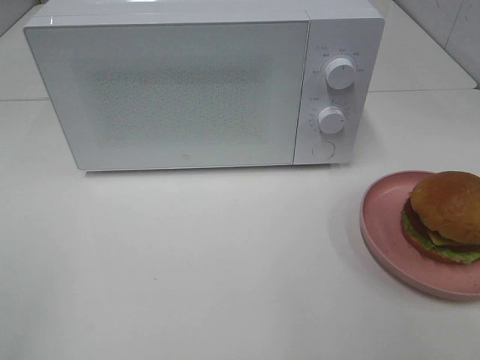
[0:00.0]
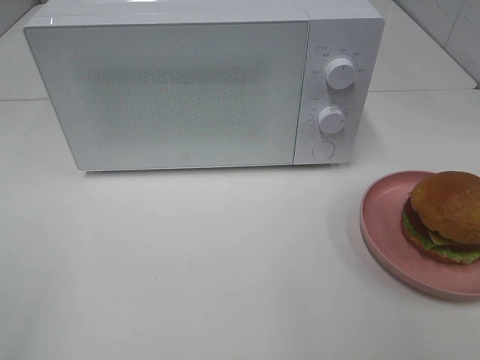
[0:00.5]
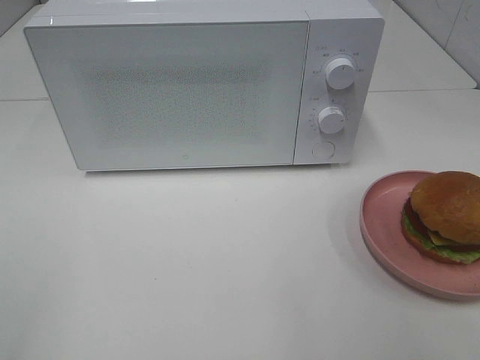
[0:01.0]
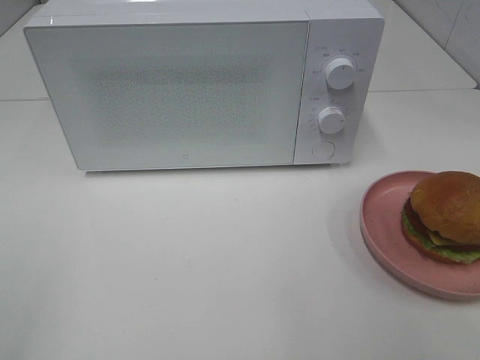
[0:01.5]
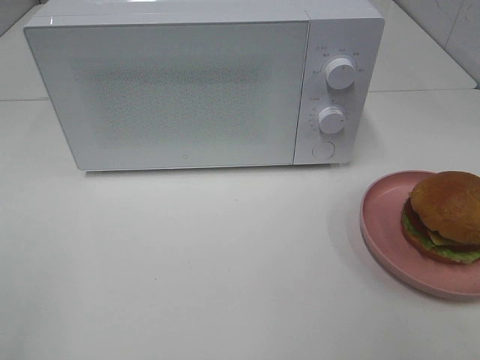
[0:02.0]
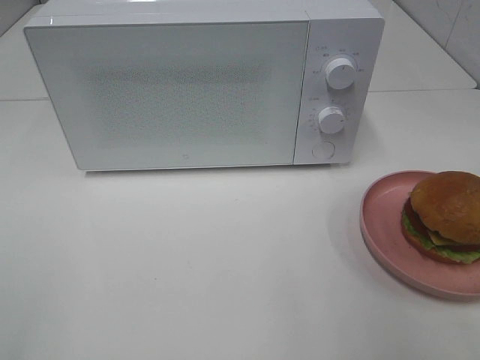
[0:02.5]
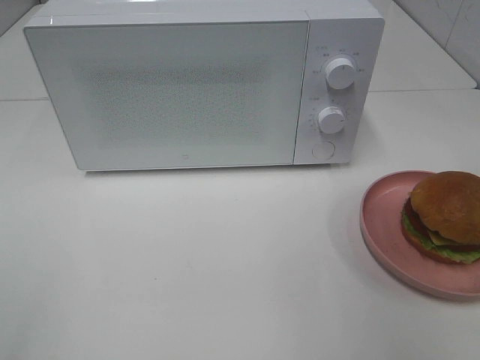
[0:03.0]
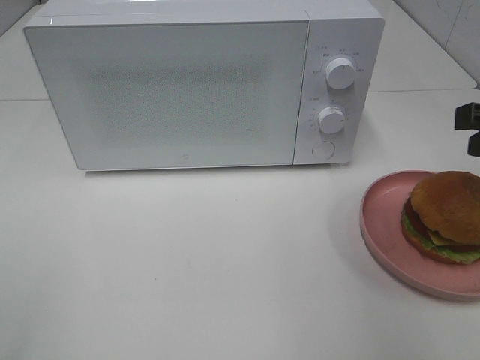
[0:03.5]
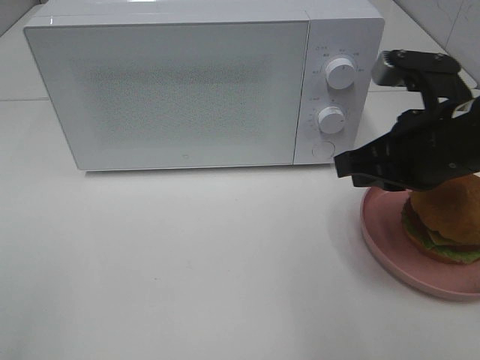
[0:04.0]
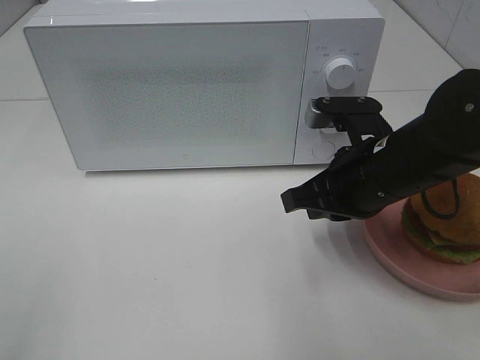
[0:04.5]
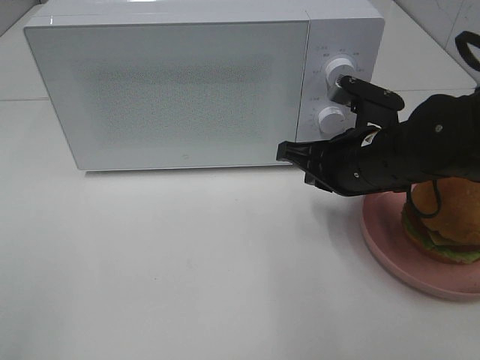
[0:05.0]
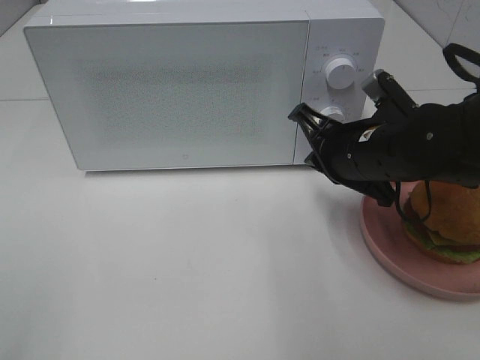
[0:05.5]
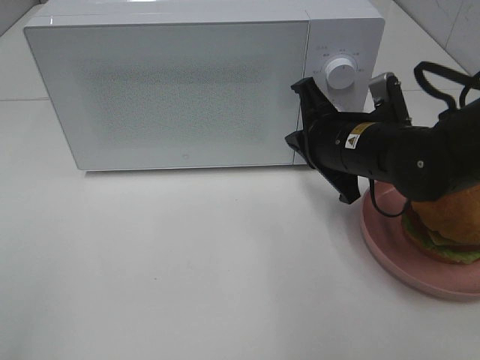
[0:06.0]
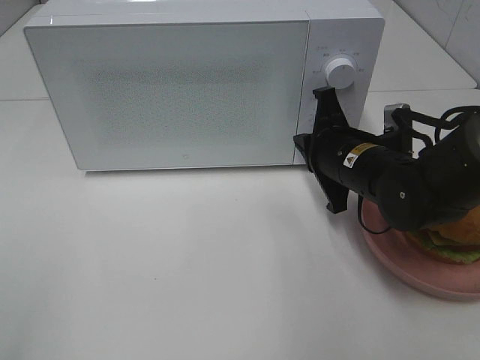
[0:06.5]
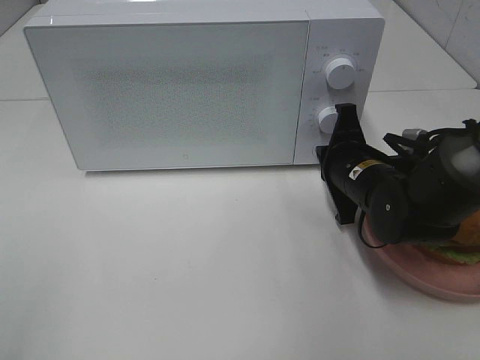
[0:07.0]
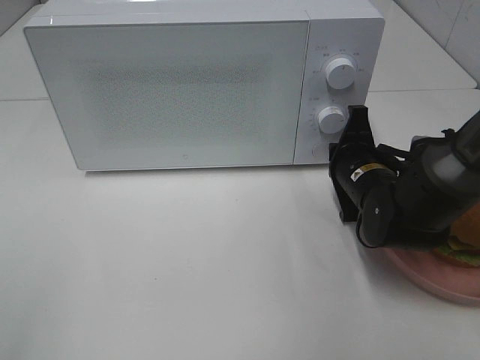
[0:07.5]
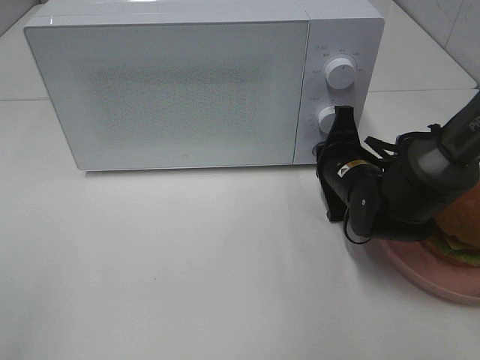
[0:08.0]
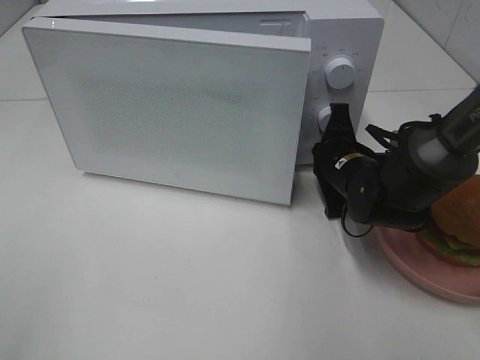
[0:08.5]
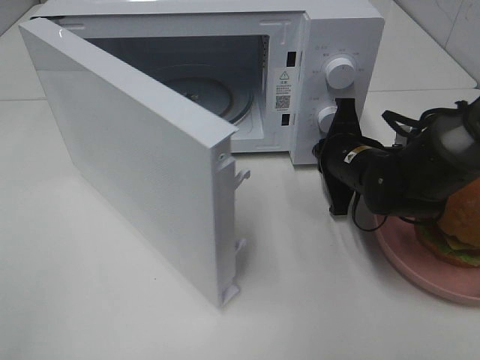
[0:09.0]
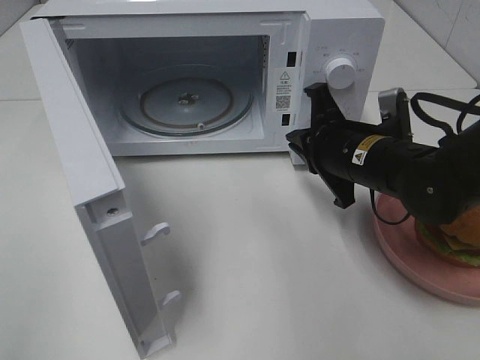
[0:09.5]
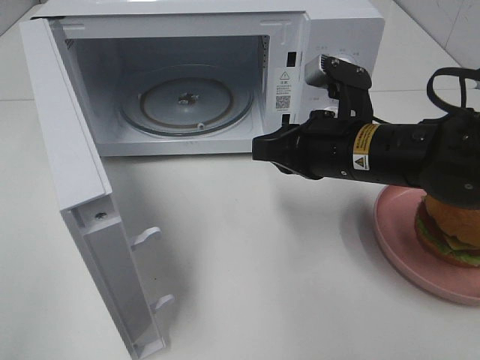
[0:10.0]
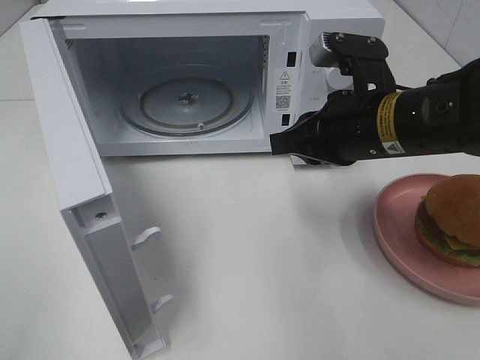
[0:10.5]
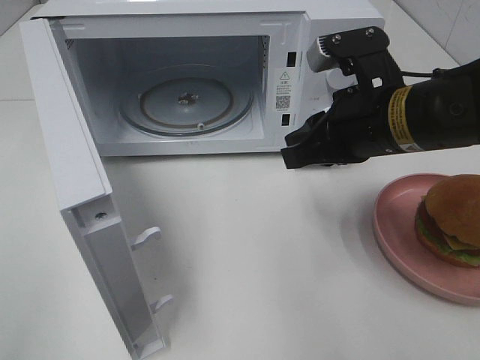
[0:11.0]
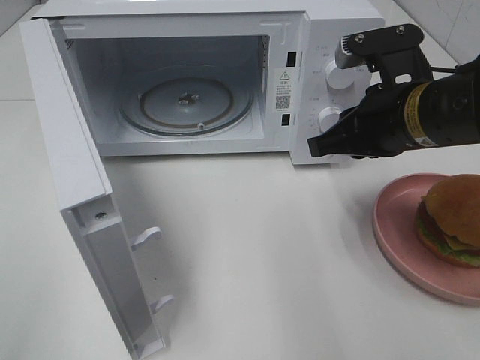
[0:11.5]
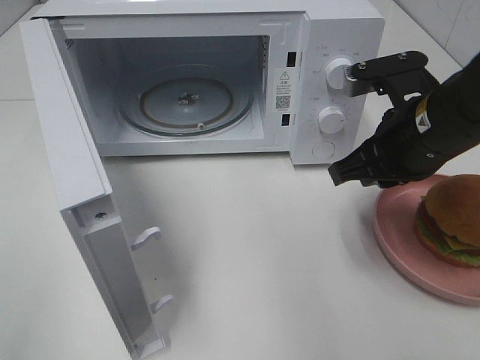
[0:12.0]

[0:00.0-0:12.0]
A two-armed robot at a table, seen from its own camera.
Task of the whole recording: Heat the burger.
Step, 0:00.0 to 0:09.0: Right hand: press the switch.
0:02.0 to 0:04.0: The right gripper heads forward, to the left and downward, covering roughly 25 cm, and closes its fingers.
0:04.0 to 0:06.0: The right gripper is displaced downward, forward and to the left by some 10 cm.
0:06.0 to 0:08.0: The right gripper heads downward, covering some 5 cm.
0:08.0 to 0:10.0: The right gripper is displaced upward and backward by approximately 10 cm.
0:10.0 to 0:12.0: The right gripper goes roughly 5 cm to the right.

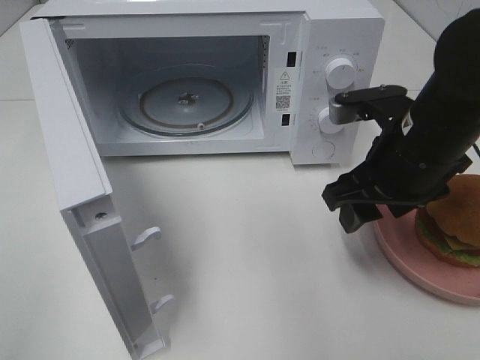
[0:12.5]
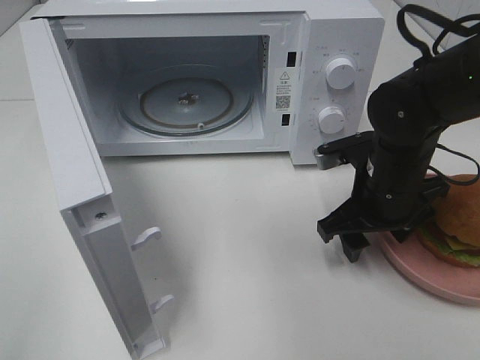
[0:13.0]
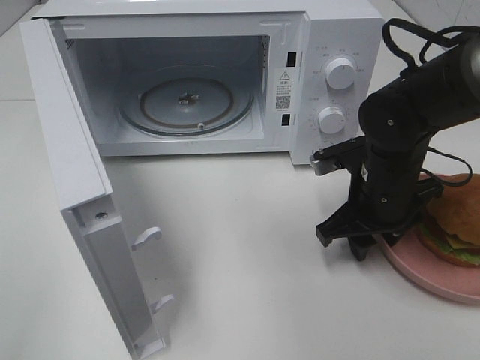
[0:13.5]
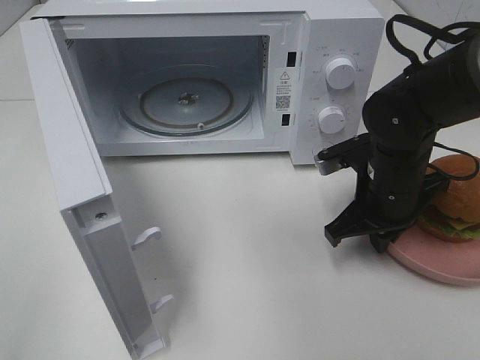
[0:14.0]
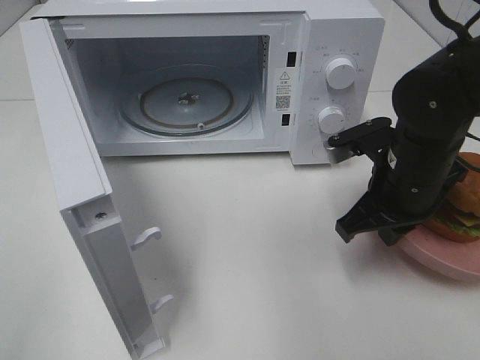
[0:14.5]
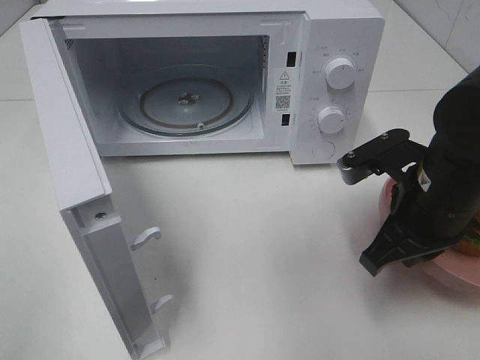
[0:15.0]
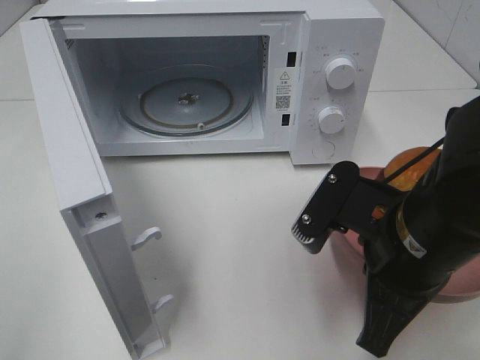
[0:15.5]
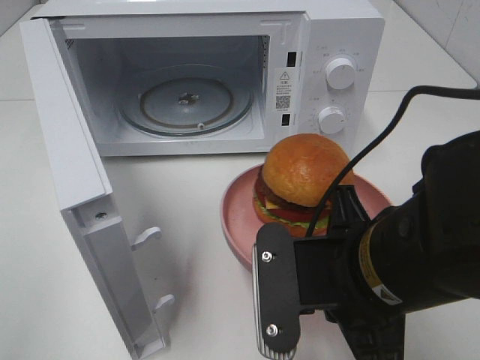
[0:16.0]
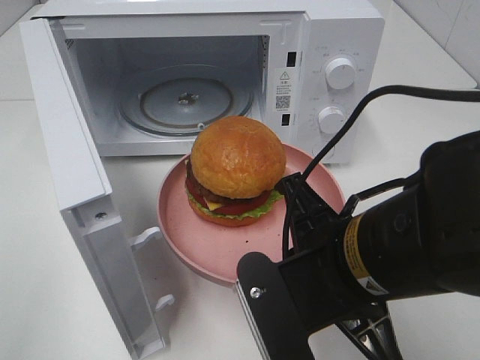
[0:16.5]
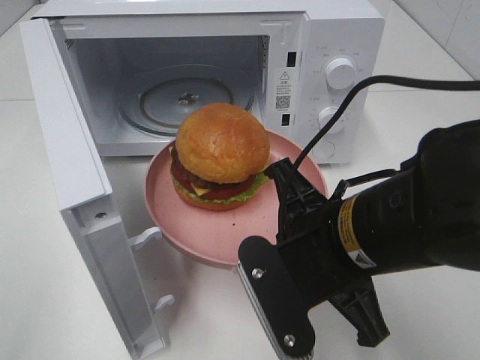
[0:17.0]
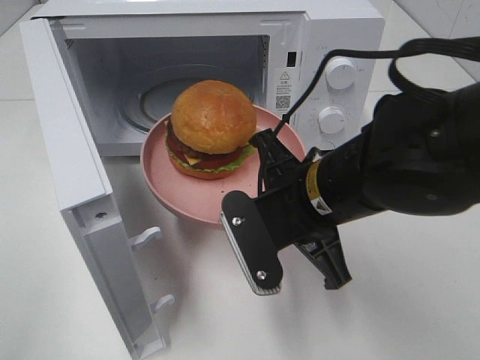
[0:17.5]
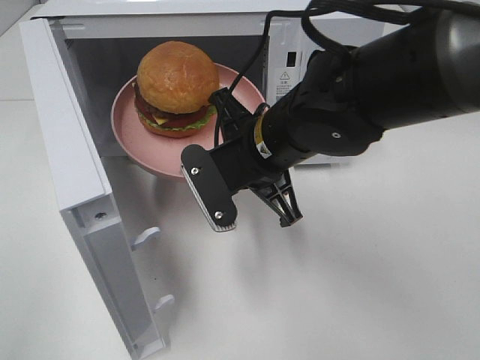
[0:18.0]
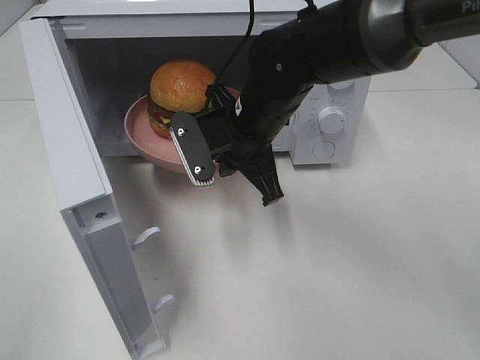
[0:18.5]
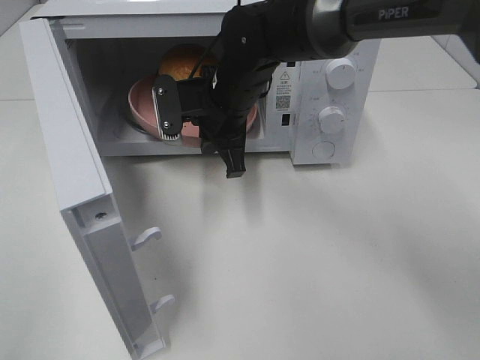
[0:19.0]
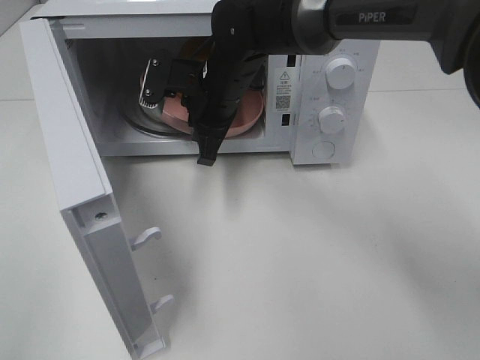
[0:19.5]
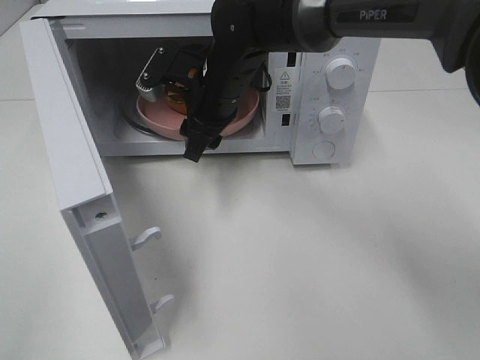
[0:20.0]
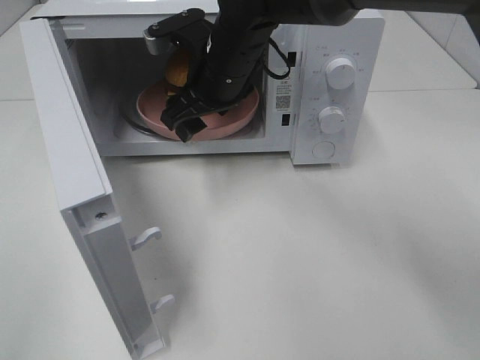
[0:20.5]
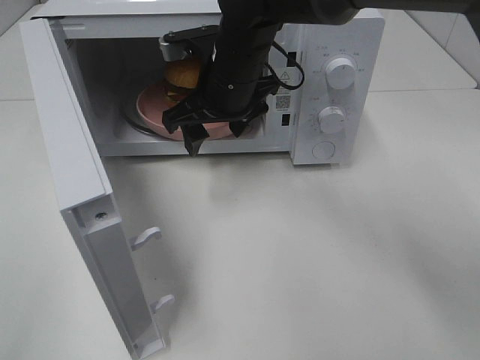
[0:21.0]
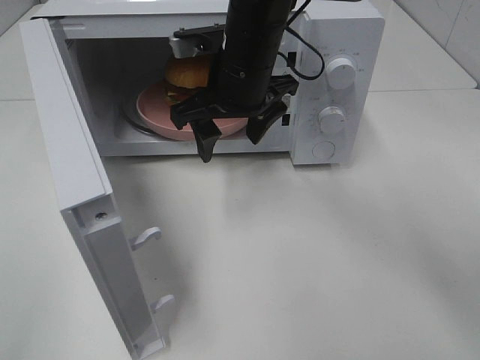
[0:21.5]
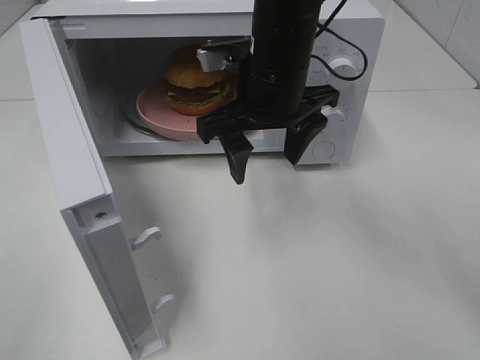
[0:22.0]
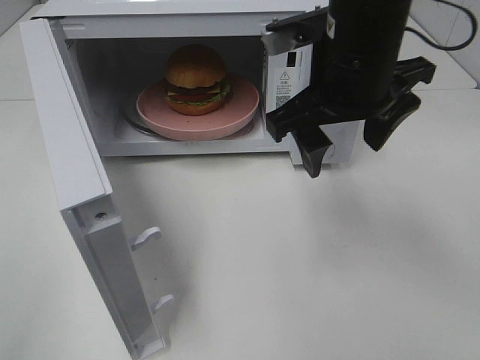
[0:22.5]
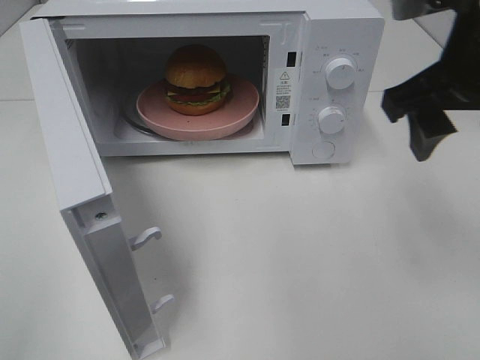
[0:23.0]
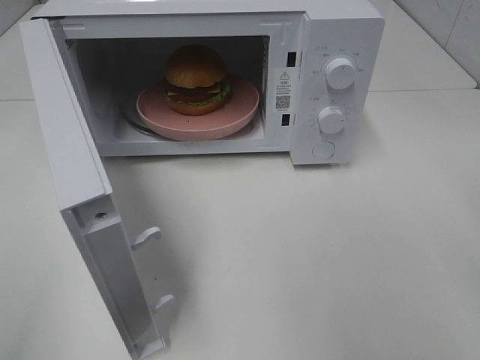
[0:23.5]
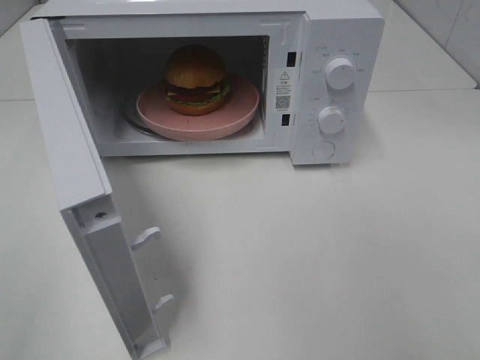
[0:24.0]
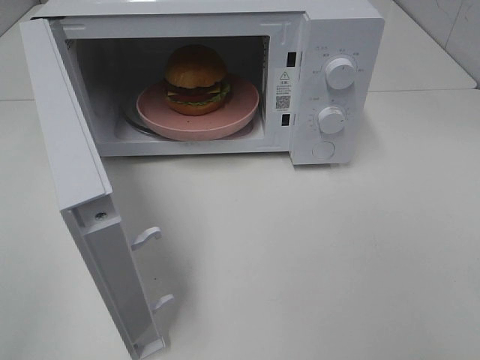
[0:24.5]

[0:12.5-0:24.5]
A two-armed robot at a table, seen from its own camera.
Task of the whole recording: Heat the burger.
Step, 0:14.0 to 0:19.5: Right hand: place the plate in the microwave.
0:12.5 to 0:14.5: The right gripper closes up.
0:14.5 to 0:16.5: The right gripper heads backward and to the left, covering approximately 15 cm.
0:16.5 to 0:18.5: The right gripper shifts approximately 20 cm forward.
0:18.5 to 0:20.5: The right gripper moves forward, approximately 5 cm, and opens its fingers.
0:20.5 to 0:22.5: The right gripper is displaced backward, to the right and upward by some 15 cm.
0:22.5 to 0:24.5: The right gripper moves backward and to the right, some 35 cm.

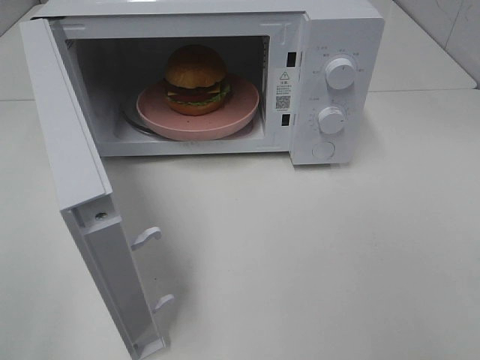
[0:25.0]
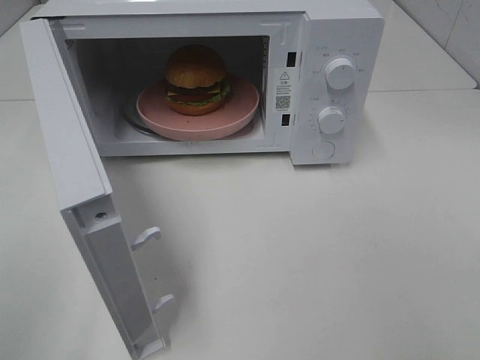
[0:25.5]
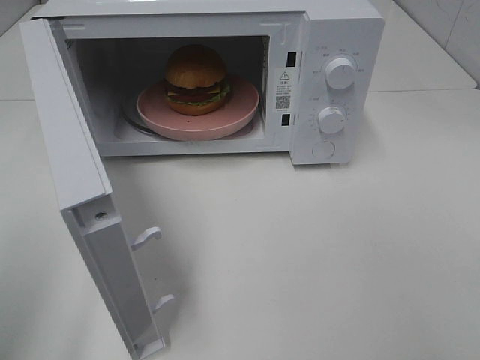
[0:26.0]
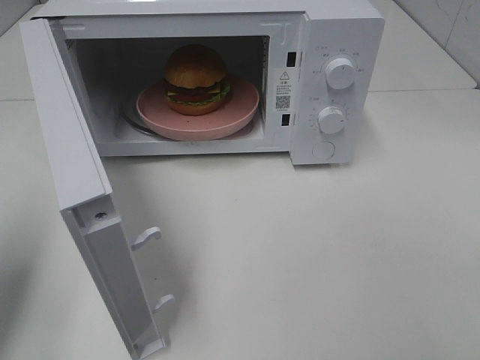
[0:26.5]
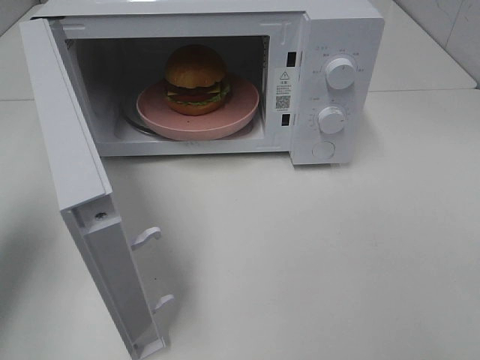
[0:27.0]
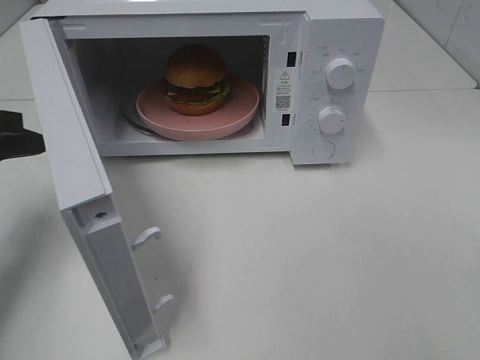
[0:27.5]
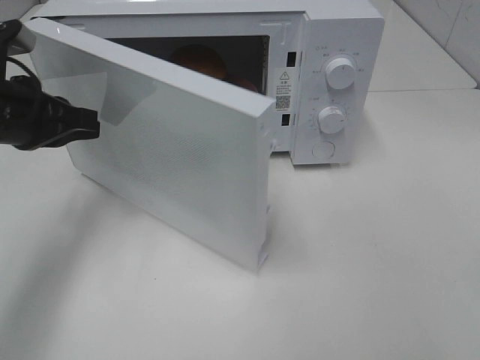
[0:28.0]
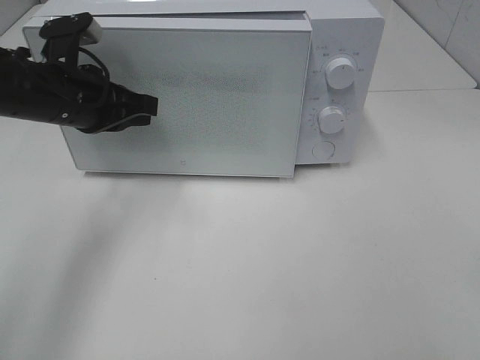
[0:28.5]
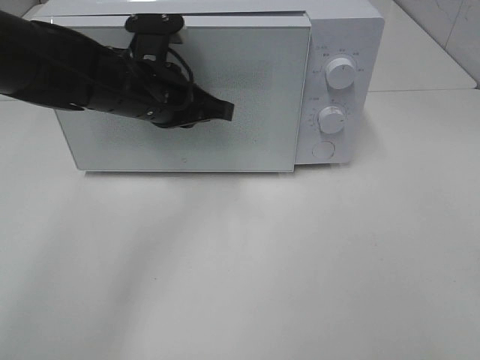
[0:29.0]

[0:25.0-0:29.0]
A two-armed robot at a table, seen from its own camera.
Task of the whole recording: Heat the burger.
0:25.0 to 0:27.0: The left gripper heads forward, covering approximately 25 cm, and closes its fingers.
0:27.0 to 0:29.0: The left gripper goes some 25 cm to the right and forward.
